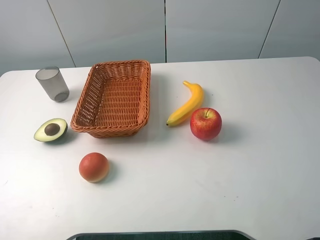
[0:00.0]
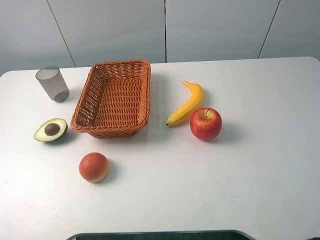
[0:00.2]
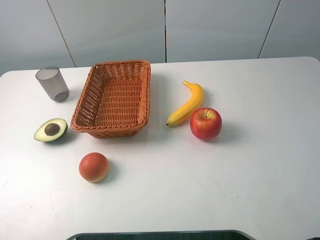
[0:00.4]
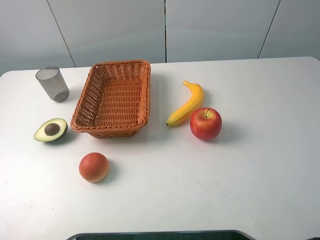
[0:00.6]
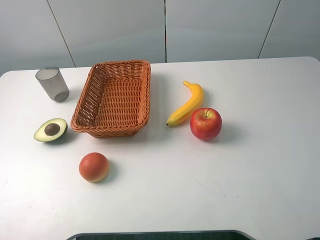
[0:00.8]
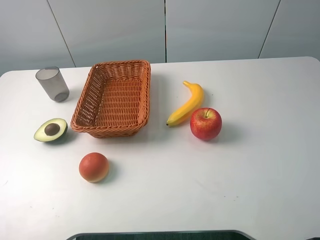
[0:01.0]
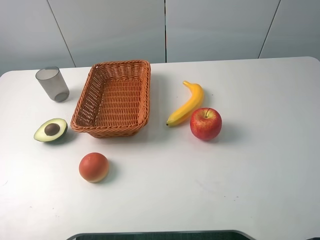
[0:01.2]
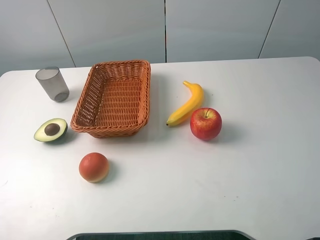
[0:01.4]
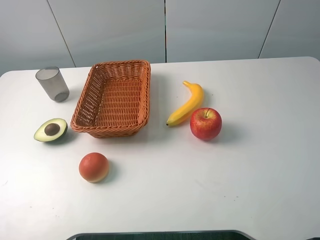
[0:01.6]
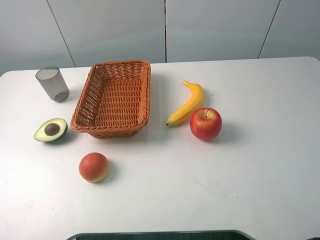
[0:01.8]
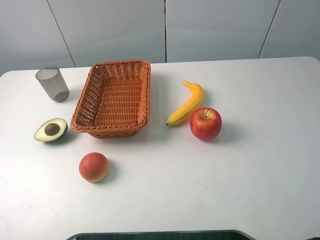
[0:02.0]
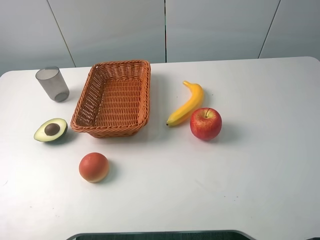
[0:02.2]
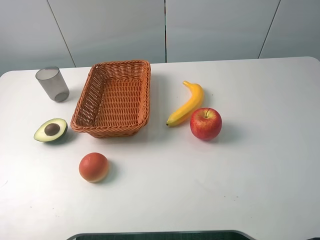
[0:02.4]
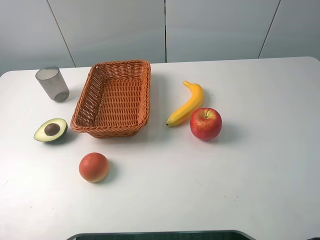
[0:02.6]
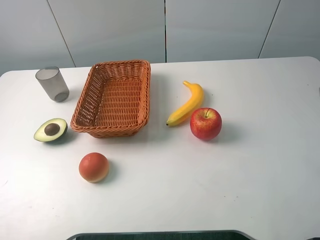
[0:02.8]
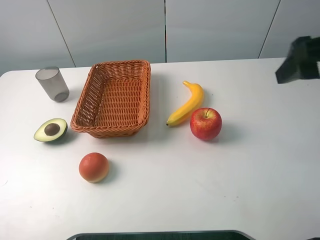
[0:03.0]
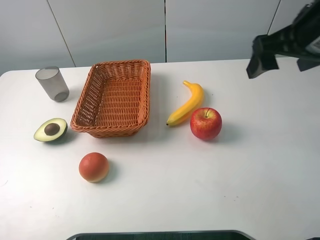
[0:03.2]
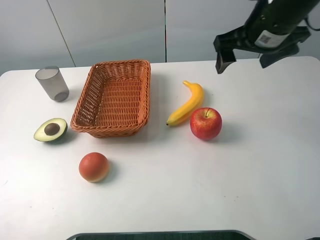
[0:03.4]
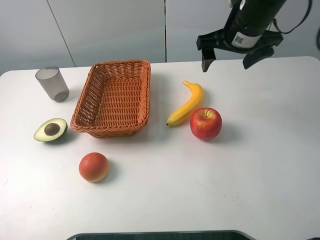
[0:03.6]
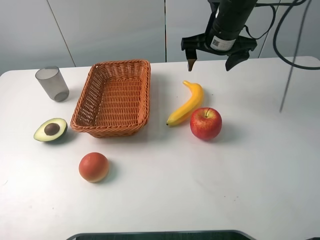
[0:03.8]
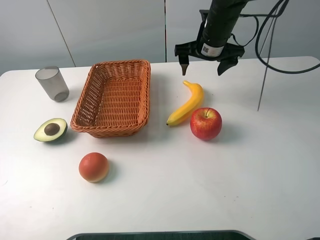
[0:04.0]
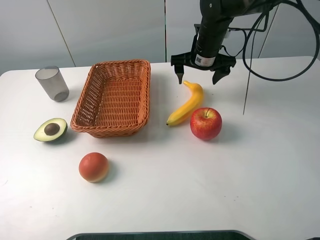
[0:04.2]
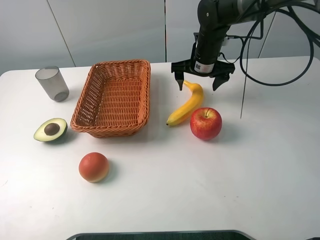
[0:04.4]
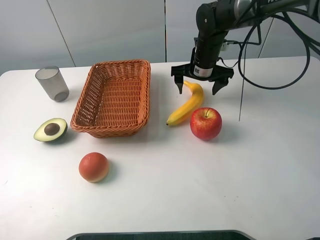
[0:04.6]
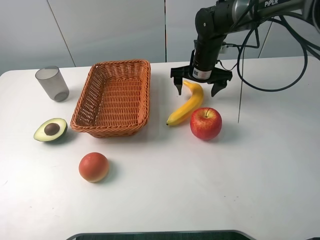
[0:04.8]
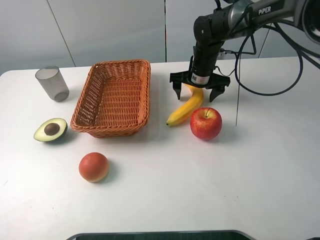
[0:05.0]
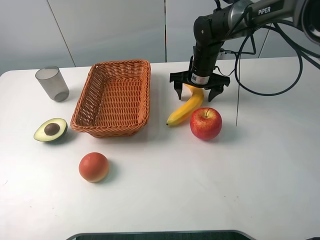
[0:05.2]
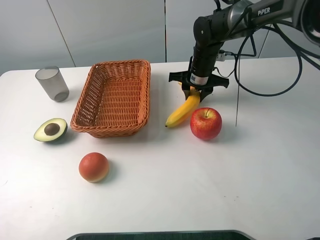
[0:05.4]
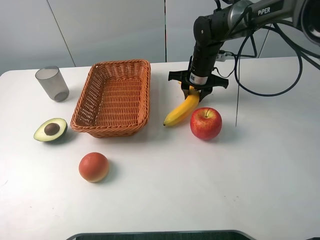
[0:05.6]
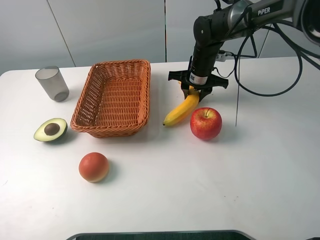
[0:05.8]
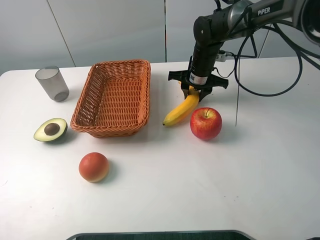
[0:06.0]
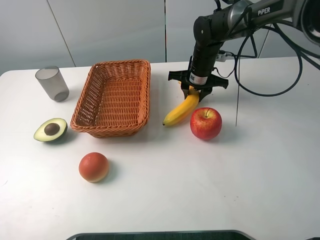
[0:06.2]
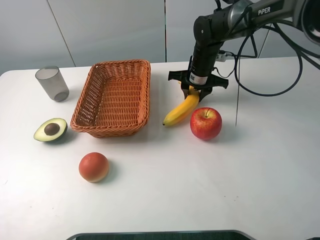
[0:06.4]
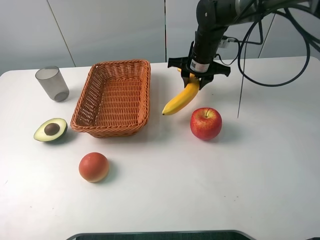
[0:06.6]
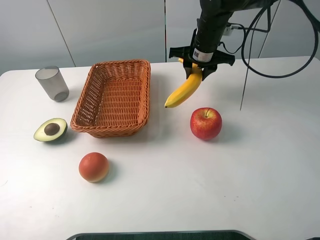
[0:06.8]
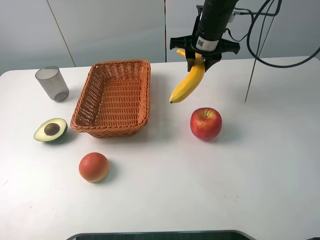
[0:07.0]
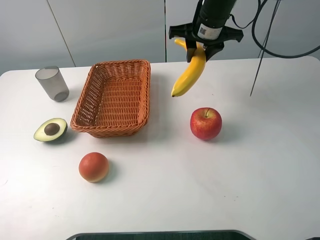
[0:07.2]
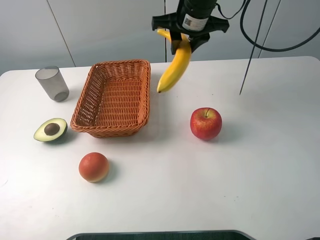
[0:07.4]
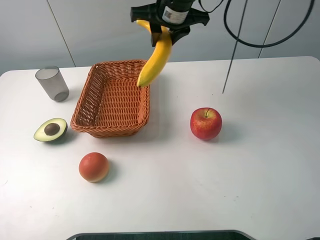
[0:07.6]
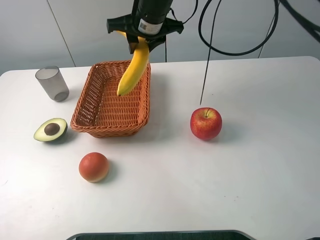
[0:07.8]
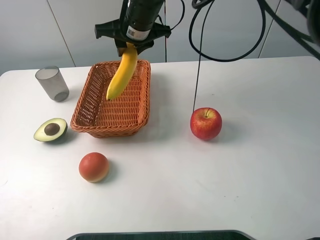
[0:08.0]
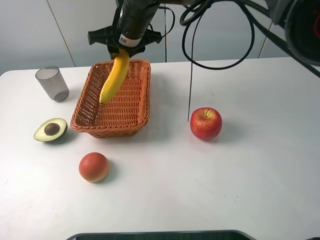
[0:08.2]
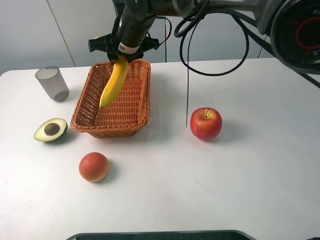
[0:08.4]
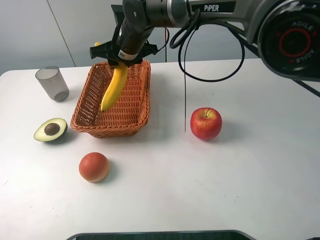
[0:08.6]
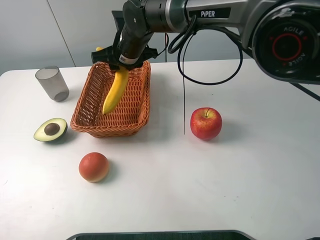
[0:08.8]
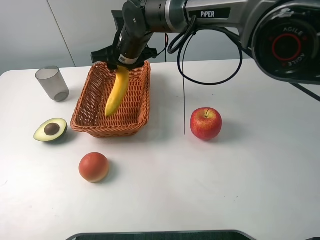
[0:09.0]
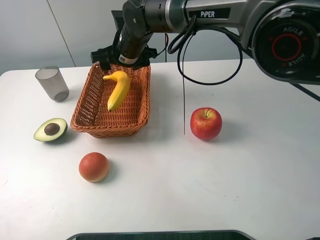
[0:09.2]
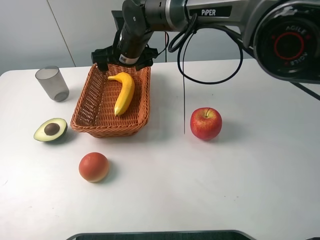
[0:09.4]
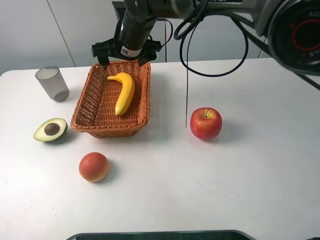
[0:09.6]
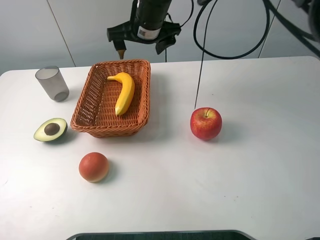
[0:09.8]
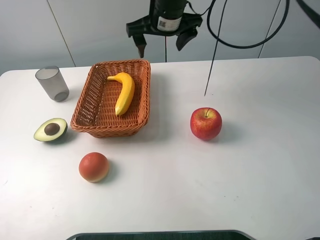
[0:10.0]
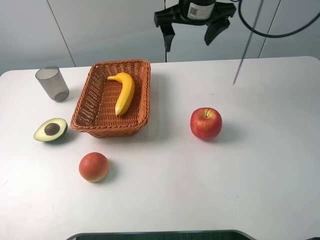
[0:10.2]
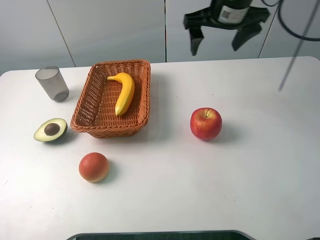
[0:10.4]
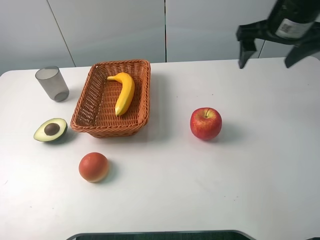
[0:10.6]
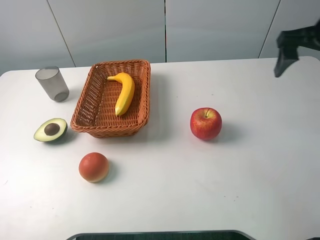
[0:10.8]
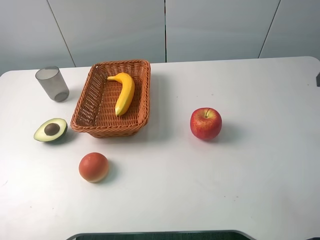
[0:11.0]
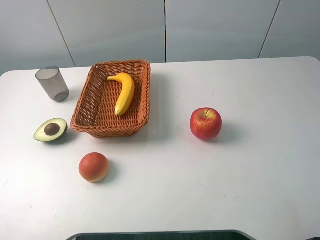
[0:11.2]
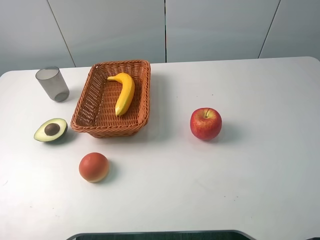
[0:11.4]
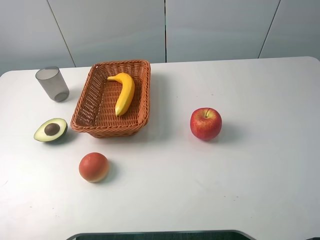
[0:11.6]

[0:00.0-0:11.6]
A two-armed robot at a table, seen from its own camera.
0:00.0 to 0:01.4: Neither gripper changes place.
0:02.8 to 0:04.4: The right gripper heads forward, downward and to the left, covering some 40 cm.
0:04.4 to 0:05.8: The right gripper closes its fingers.
0:05.8 to 0:07.2: The right gripper travels upward by approximately 15 cm.
0:07.2 to 0:08.8: The right gripper moves to the left, roughly 15 cm.
0:08.8 to 0:10.2: The right gripper is displaced to the right and upward by roughly 15 cm, and opens its fingers.
0:10.2 to 0:11.6: The right gripper moves backward and to the right, approximately 40 cm.

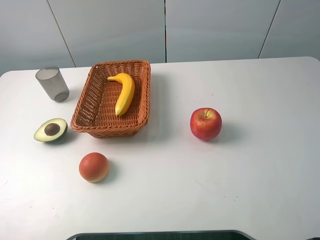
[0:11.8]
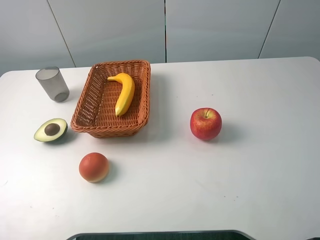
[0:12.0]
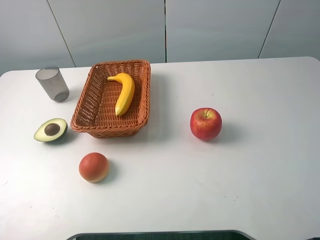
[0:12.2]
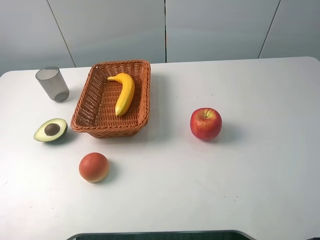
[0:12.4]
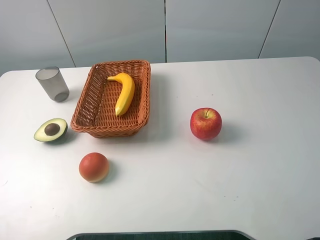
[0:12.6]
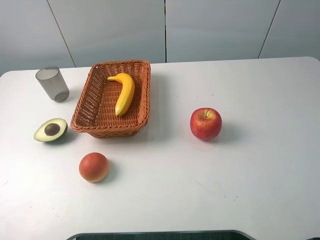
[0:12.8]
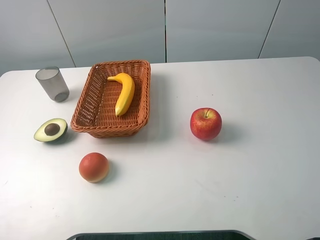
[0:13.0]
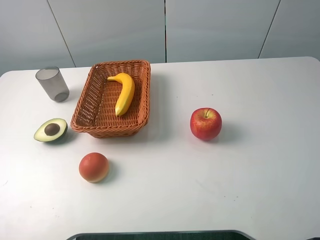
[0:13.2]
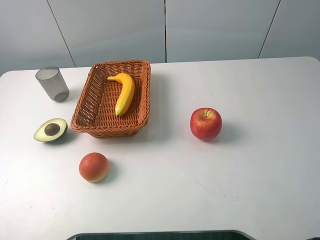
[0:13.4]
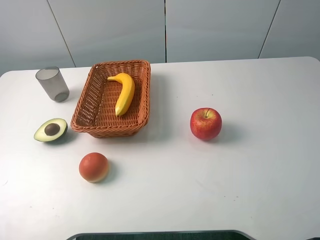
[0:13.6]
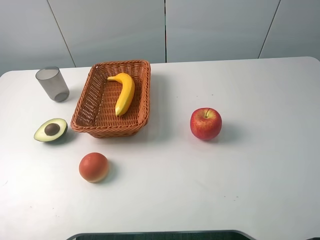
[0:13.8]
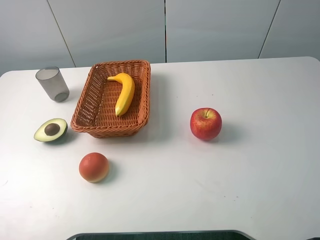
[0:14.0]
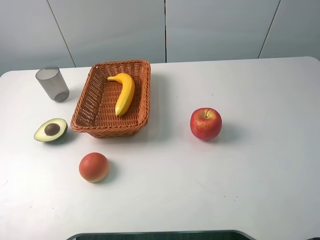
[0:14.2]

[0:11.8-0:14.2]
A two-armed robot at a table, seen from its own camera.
0:13.0 to 0:14.2: Neither gripper changes place.

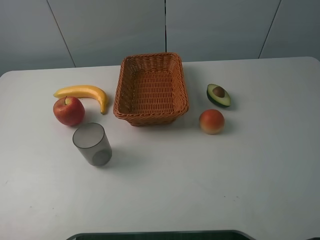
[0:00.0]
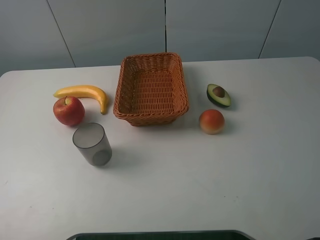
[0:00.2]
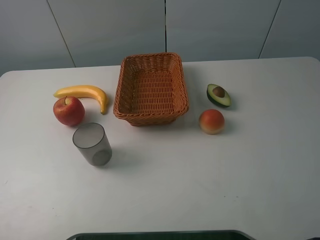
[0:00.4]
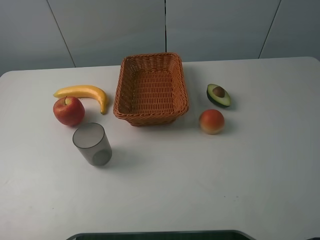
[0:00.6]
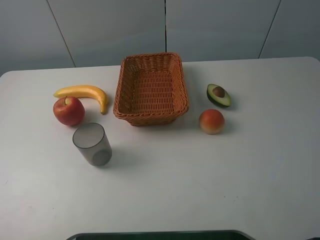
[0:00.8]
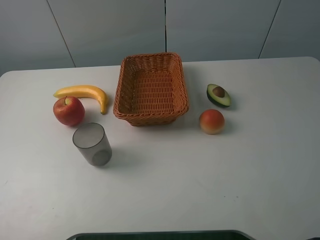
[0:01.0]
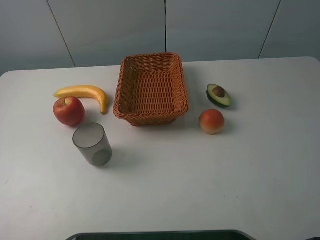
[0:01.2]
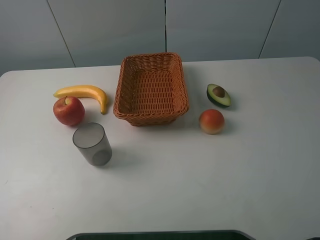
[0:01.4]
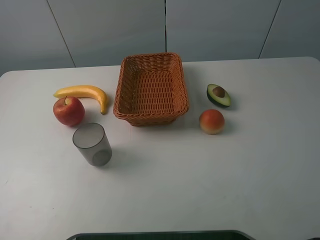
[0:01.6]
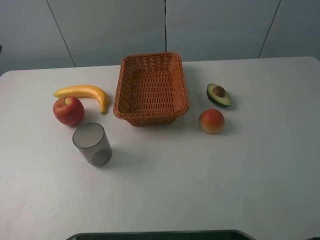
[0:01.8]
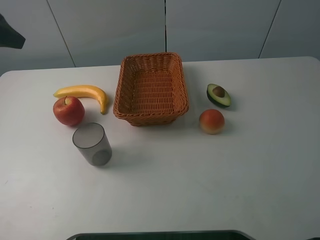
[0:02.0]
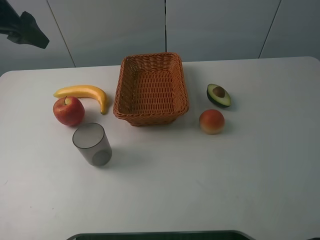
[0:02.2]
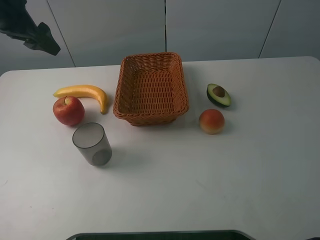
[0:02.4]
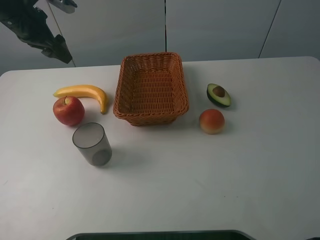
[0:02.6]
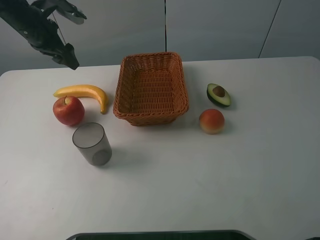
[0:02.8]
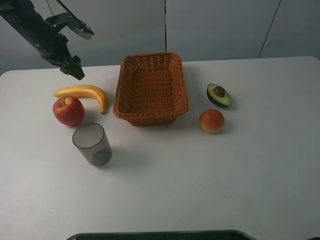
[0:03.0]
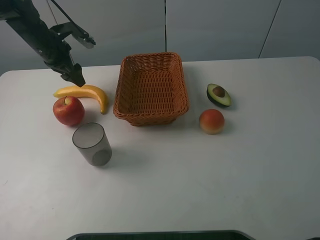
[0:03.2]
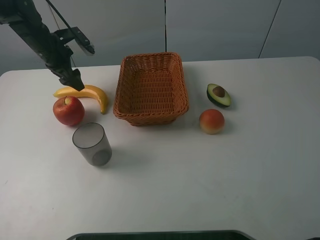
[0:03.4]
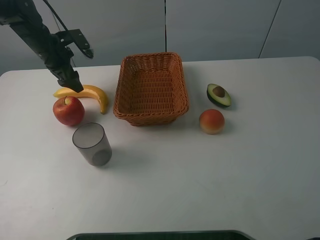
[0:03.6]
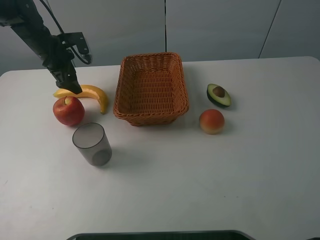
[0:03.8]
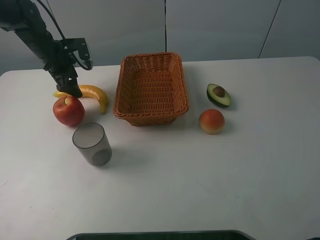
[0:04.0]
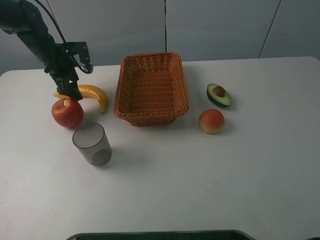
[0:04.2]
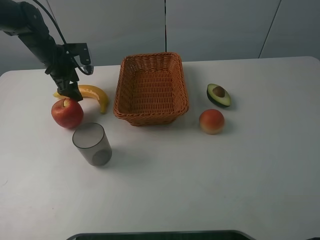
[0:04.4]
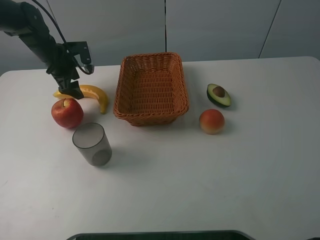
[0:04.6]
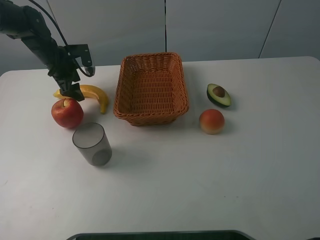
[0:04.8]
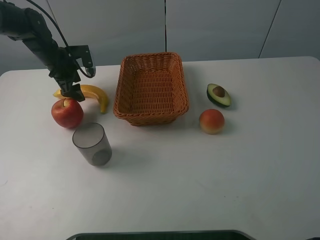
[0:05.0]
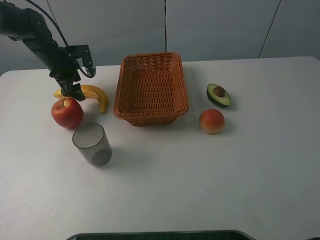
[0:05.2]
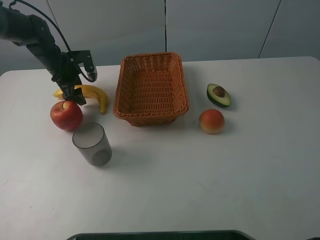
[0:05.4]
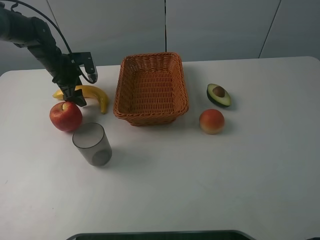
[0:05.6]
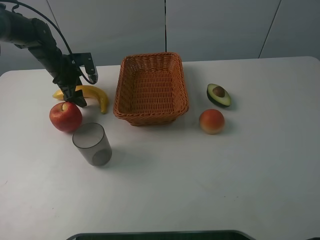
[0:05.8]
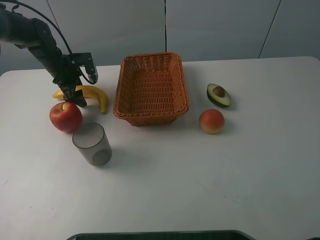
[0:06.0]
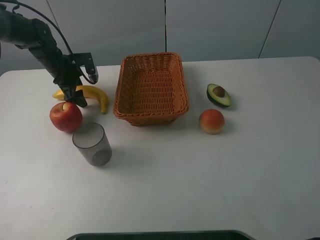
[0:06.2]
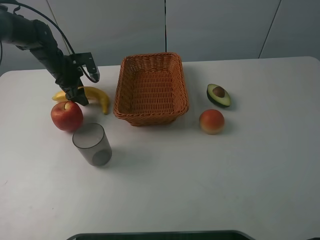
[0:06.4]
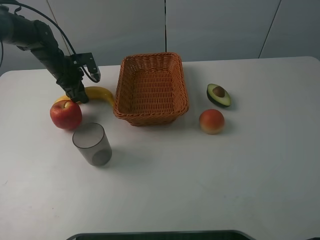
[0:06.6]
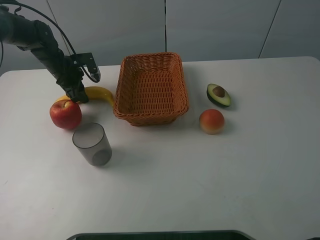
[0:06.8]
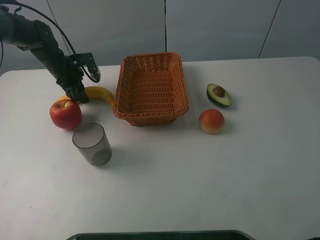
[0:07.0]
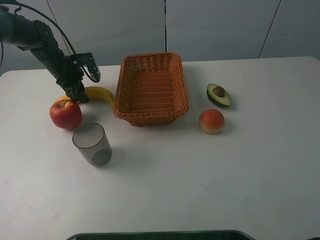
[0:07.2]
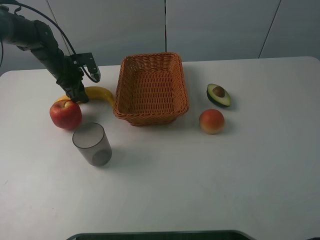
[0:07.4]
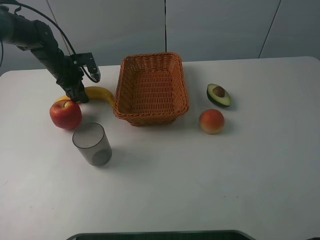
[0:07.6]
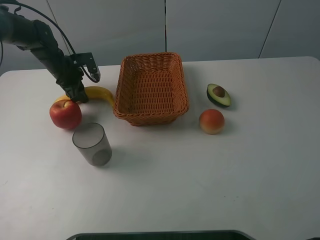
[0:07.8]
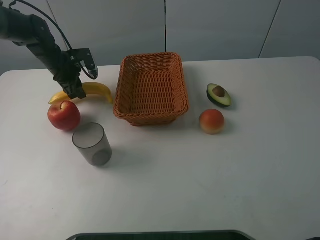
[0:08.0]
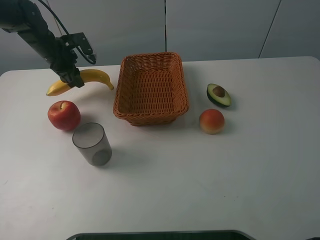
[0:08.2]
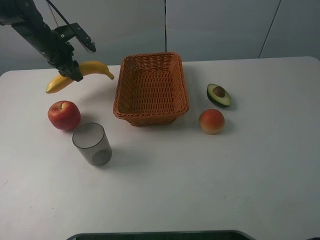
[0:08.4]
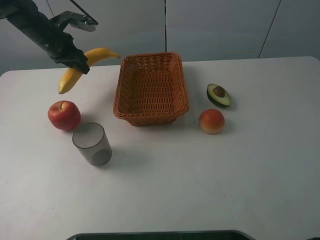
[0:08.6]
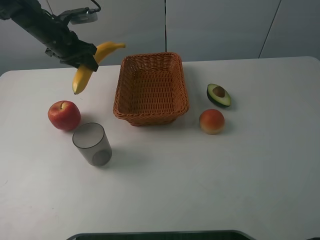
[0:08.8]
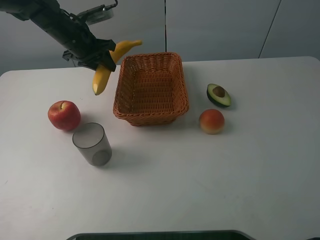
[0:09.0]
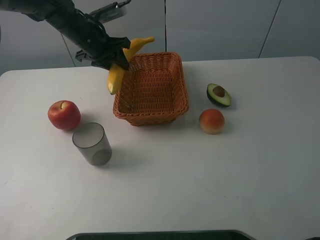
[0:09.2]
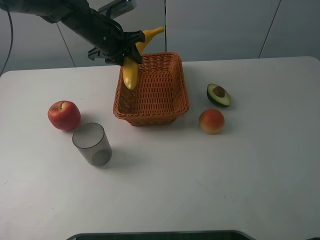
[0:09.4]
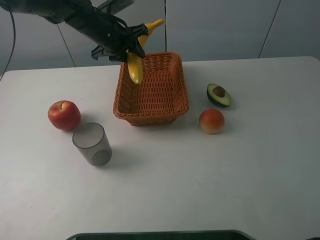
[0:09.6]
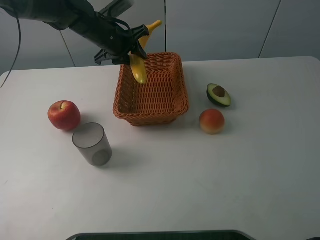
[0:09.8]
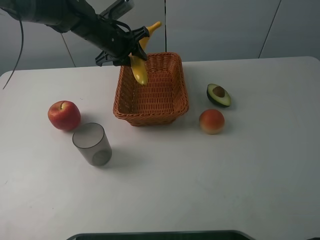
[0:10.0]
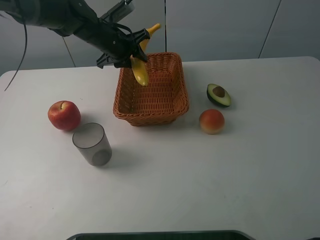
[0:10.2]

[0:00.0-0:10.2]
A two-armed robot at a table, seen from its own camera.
0:01.4 to 0:03.0: The left gripper shifts roughly 40 cm forward.
0:03.0 to 0:04.4: The left gripper travels downward by approximately 5 cm.
0:04.4 to 0:05.8: There are only small adjustments of the grippers.
0:05.8 to 0:07.2: The left gripper closes.
0:07.2 to 0:08.8: The left gripper goes some 10 cm upward.
0:08.8 to 0:10.2: The left gripper shifts some 15 cm to the right.
